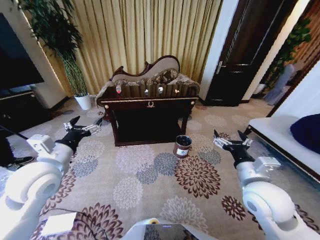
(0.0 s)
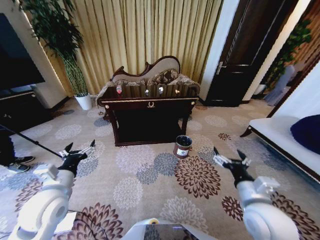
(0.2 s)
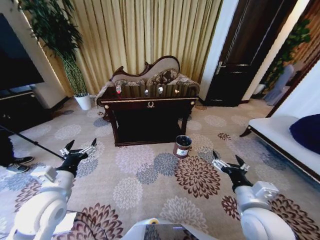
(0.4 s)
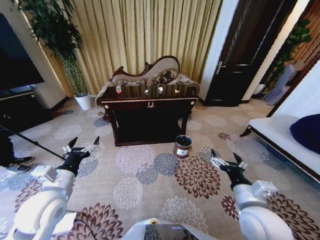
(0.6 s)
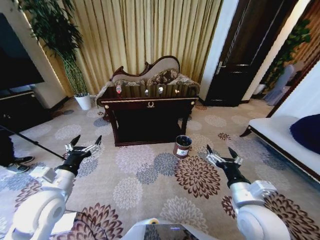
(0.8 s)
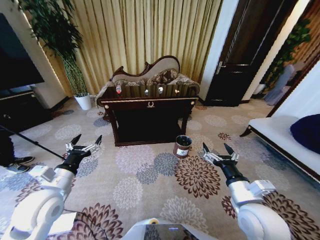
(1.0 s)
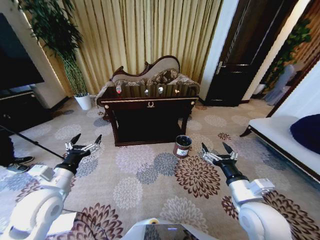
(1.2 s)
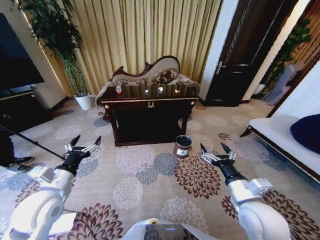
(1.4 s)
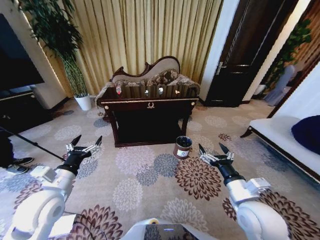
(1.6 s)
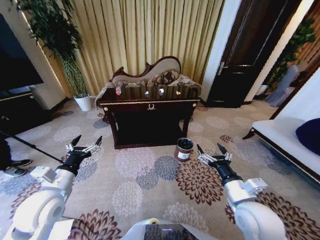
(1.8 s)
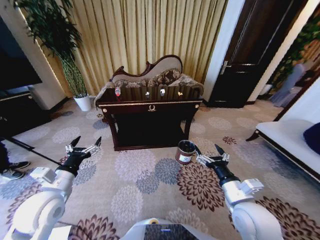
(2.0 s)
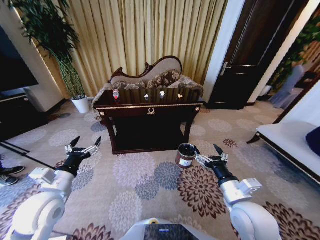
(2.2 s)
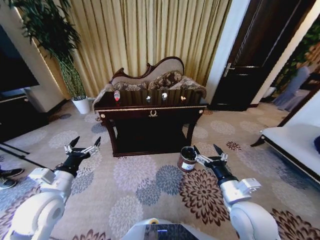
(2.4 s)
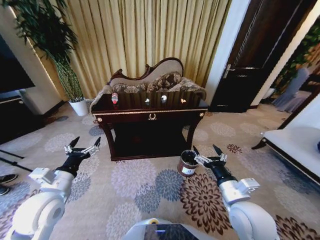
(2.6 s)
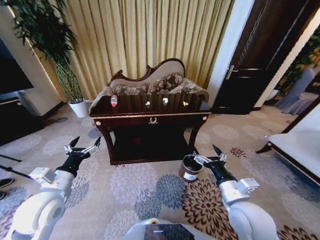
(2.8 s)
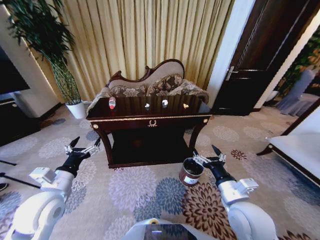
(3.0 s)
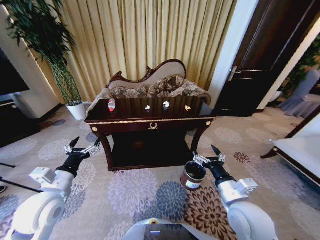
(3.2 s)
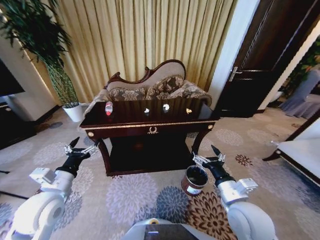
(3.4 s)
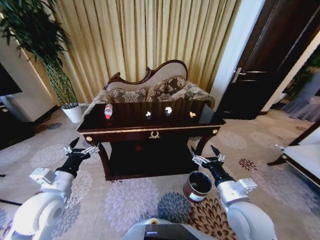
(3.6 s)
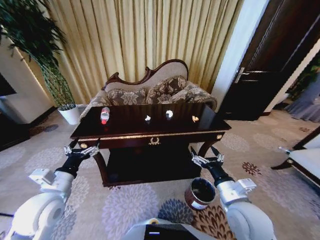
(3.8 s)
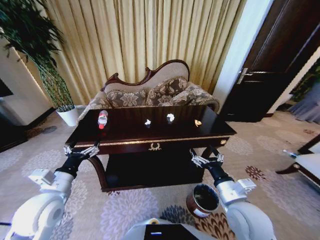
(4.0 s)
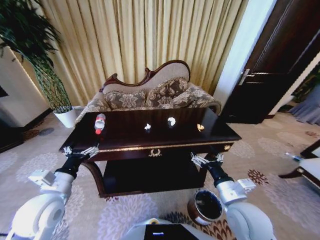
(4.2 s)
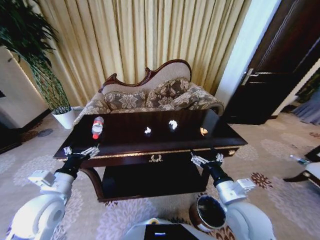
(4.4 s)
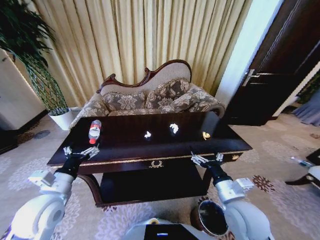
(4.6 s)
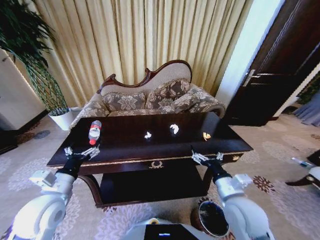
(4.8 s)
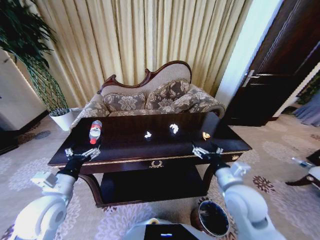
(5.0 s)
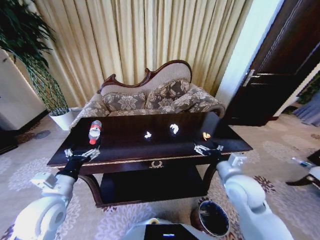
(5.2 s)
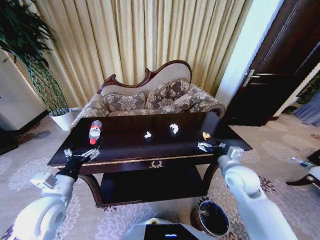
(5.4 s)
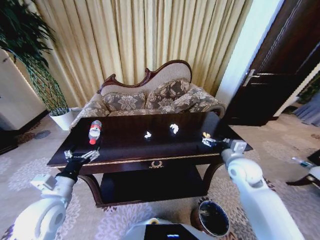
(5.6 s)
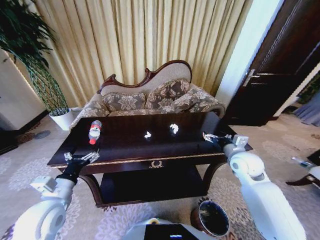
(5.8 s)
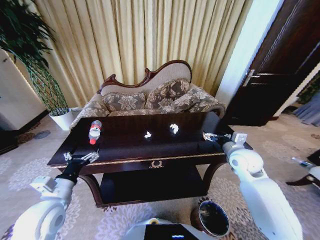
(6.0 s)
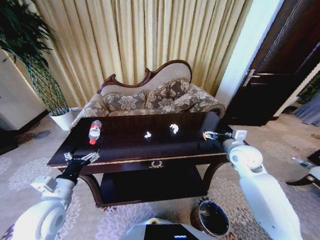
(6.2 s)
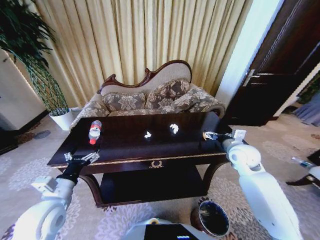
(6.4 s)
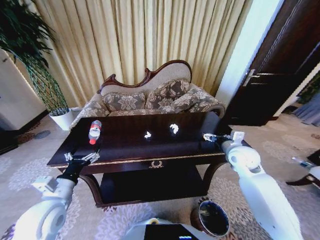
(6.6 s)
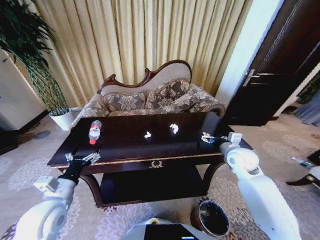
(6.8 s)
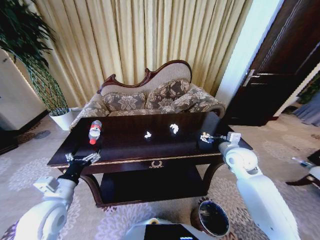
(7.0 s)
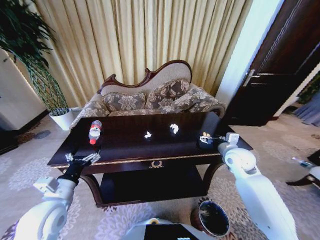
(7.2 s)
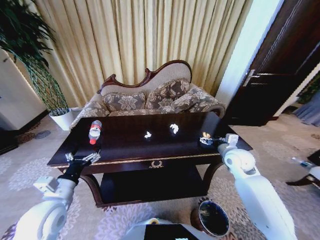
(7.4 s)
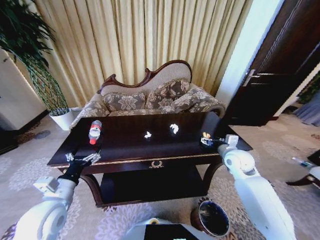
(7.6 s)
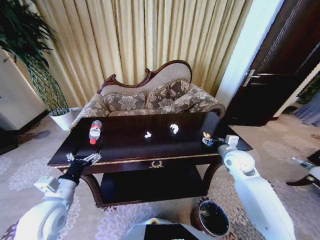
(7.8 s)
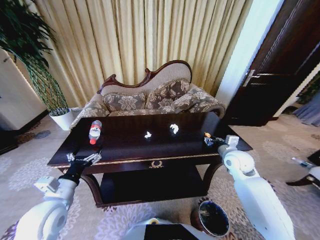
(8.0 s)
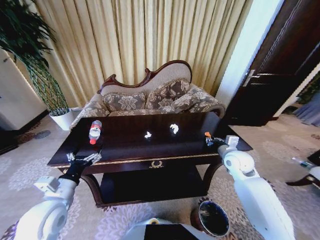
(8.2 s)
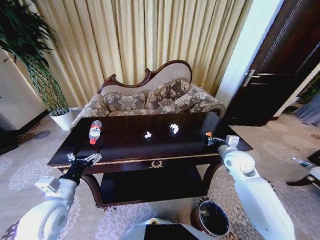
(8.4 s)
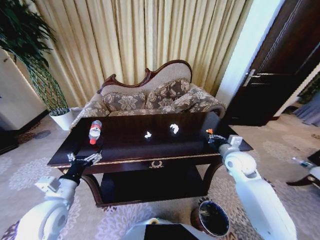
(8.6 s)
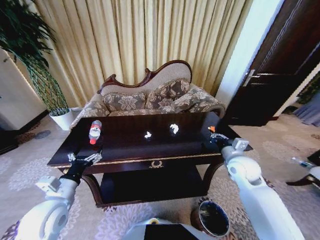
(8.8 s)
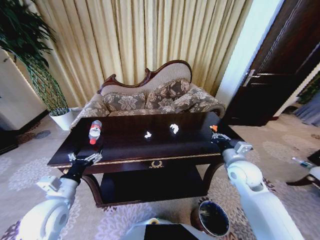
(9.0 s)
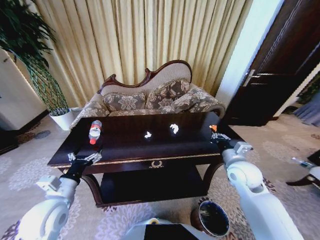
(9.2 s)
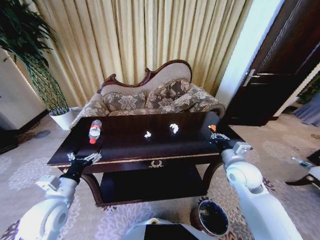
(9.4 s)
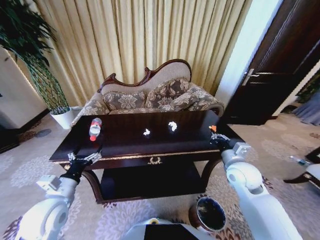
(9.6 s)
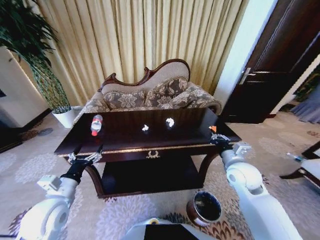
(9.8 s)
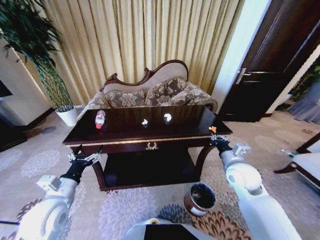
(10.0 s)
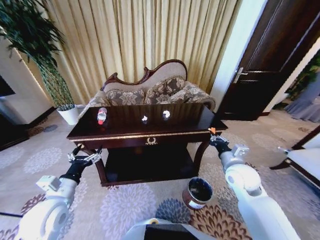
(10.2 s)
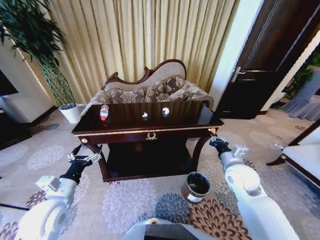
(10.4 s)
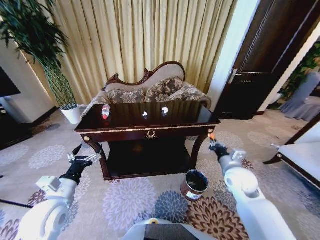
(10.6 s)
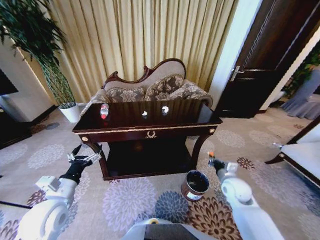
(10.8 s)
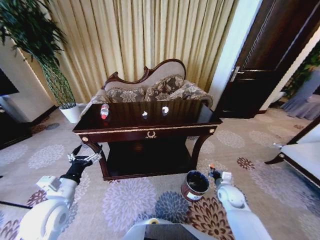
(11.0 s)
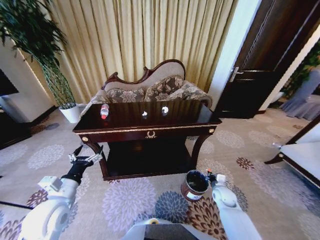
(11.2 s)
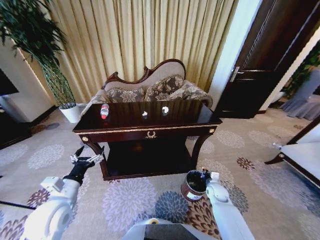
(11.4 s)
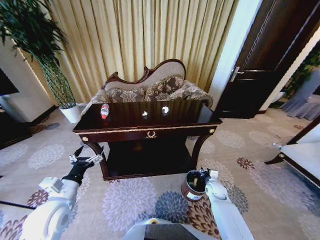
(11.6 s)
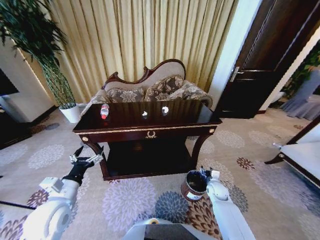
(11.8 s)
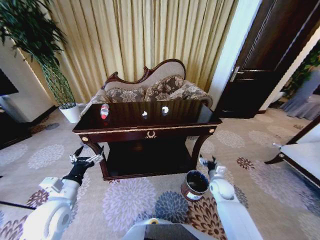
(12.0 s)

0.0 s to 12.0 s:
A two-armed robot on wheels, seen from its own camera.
Task of the whole recording: Move to the front of the table and place the trash on the table into the trash bin.
4.4 to 6.0 s: The right gripper heads forward and to the right, covering about 20 cm.
6.0 to 7.6 s: There are only small adjustments of the grippers.
7.6 to 9.0 s: The right gripper moves backward, about 5 cm, and closes its fingers.
10.4 to 12.0 s: The right gripper travels downward by approximately 20 cm, and opens its fingers.

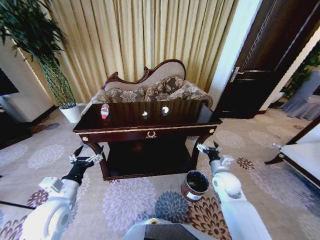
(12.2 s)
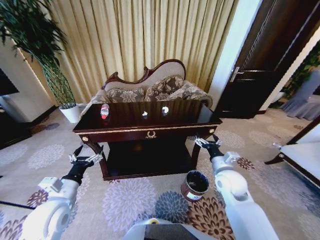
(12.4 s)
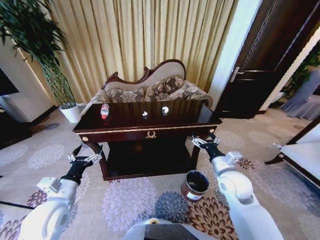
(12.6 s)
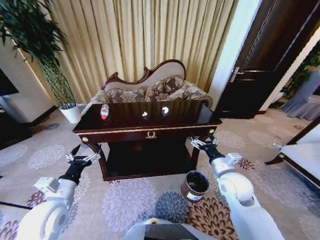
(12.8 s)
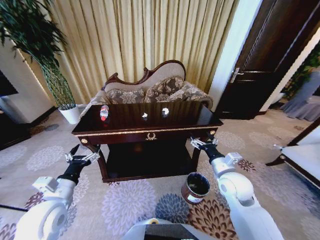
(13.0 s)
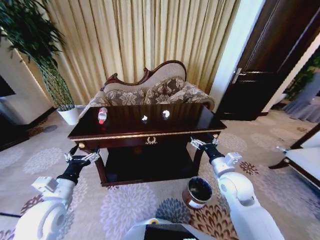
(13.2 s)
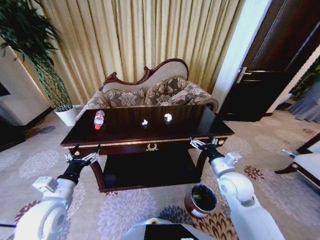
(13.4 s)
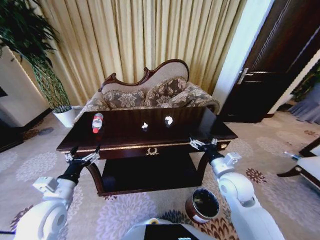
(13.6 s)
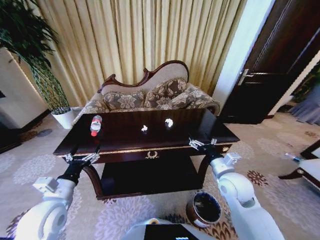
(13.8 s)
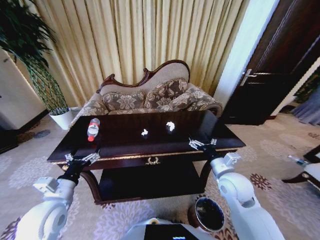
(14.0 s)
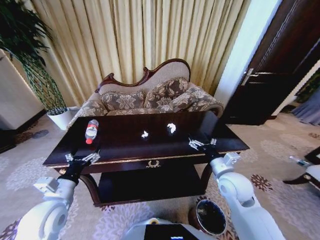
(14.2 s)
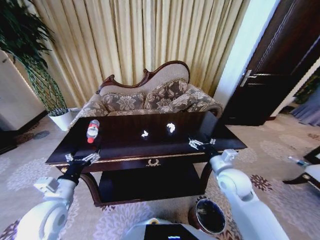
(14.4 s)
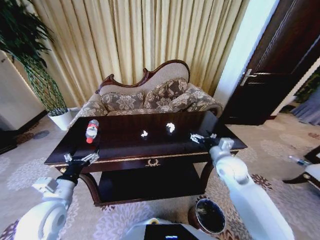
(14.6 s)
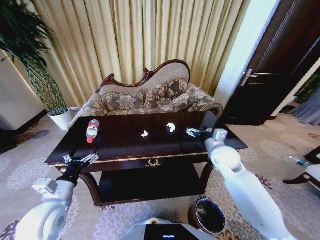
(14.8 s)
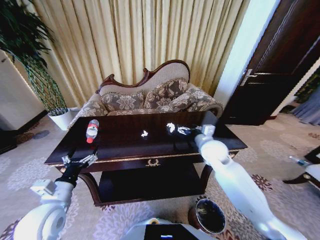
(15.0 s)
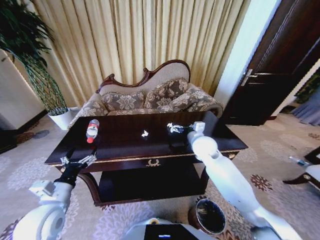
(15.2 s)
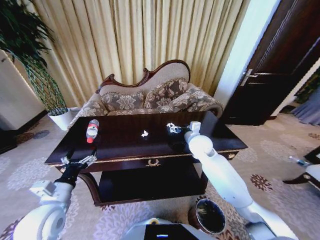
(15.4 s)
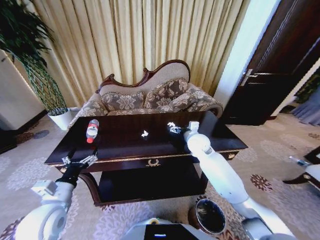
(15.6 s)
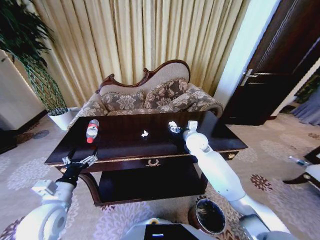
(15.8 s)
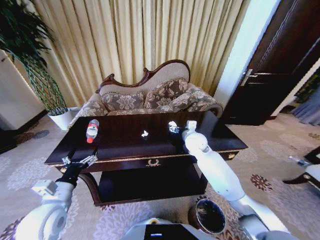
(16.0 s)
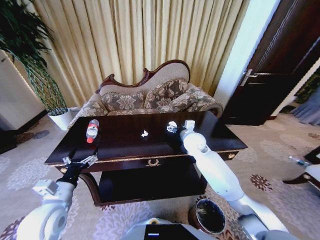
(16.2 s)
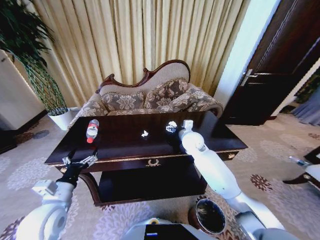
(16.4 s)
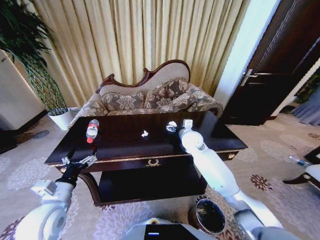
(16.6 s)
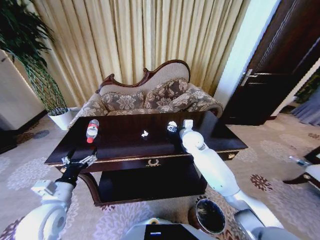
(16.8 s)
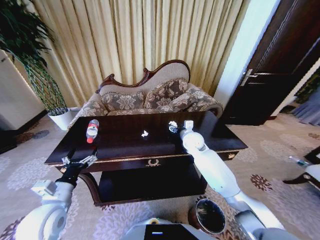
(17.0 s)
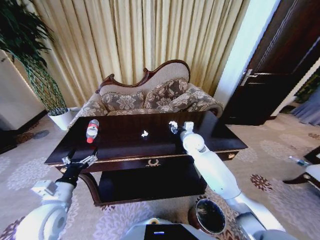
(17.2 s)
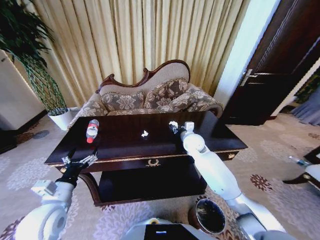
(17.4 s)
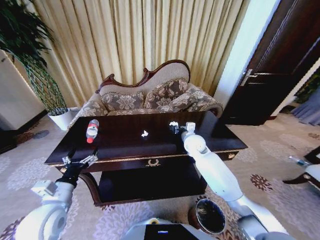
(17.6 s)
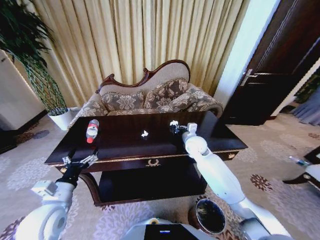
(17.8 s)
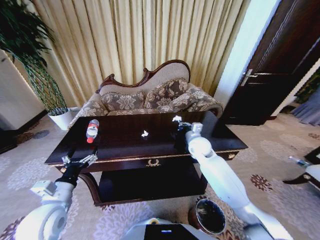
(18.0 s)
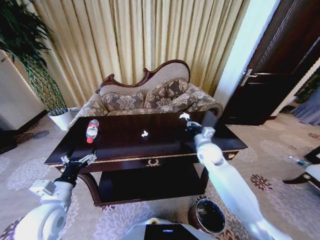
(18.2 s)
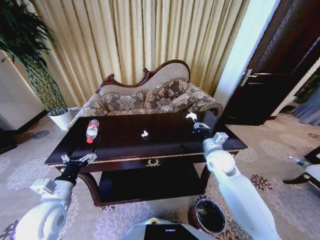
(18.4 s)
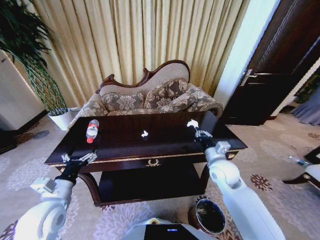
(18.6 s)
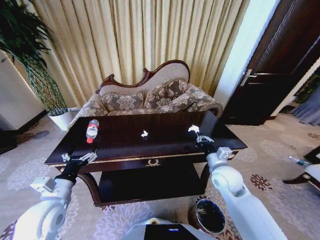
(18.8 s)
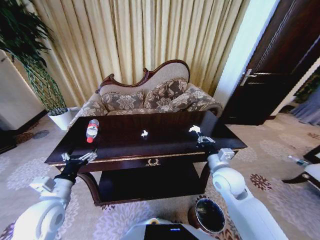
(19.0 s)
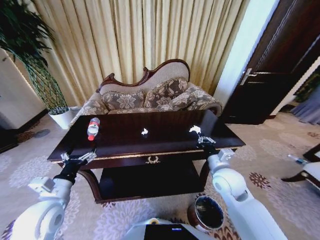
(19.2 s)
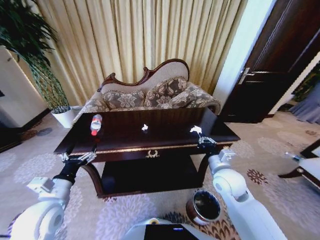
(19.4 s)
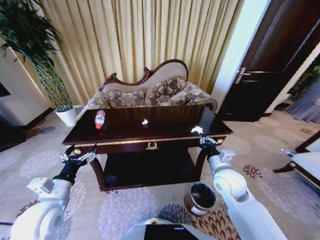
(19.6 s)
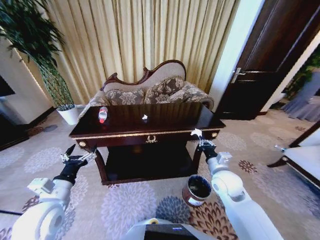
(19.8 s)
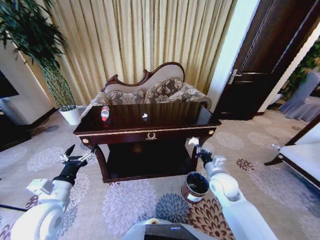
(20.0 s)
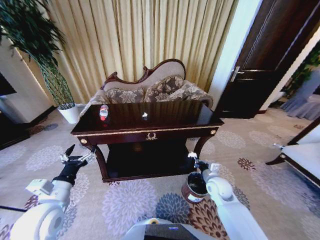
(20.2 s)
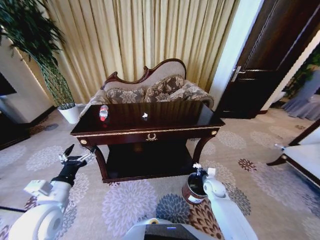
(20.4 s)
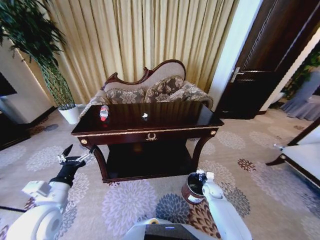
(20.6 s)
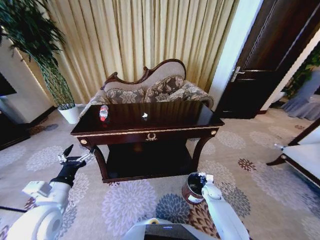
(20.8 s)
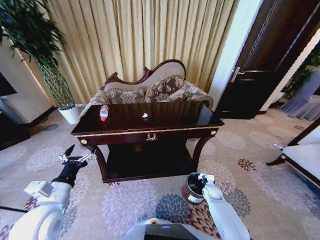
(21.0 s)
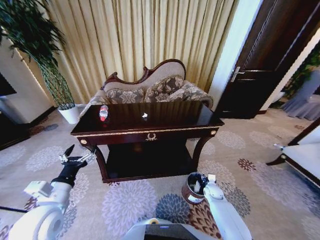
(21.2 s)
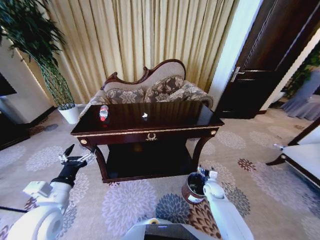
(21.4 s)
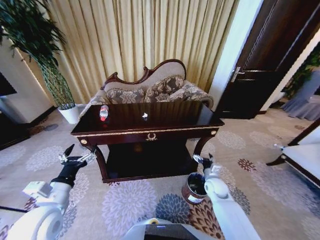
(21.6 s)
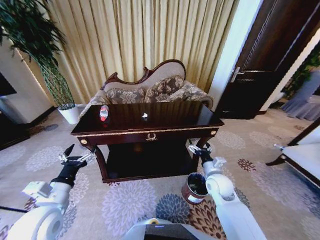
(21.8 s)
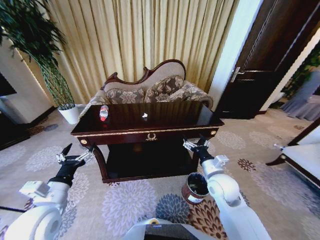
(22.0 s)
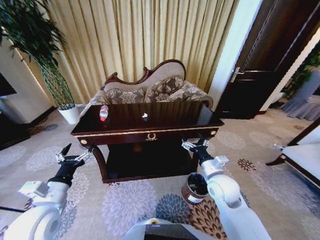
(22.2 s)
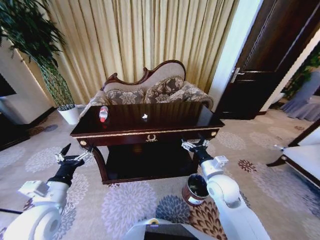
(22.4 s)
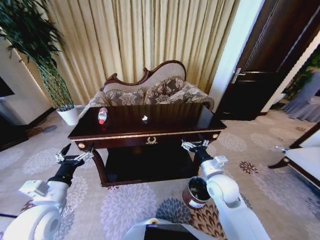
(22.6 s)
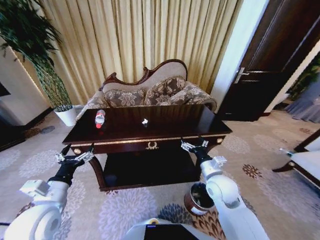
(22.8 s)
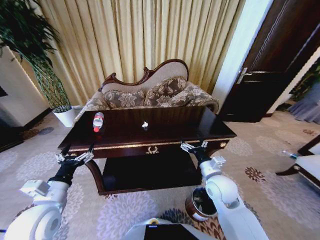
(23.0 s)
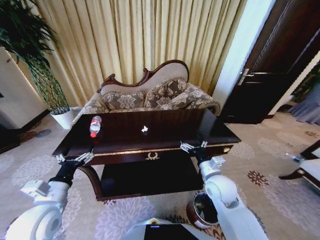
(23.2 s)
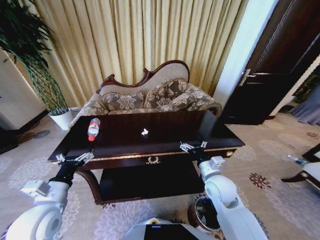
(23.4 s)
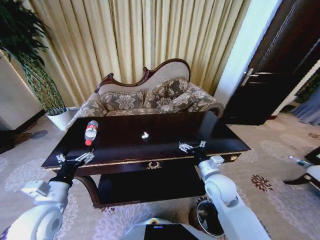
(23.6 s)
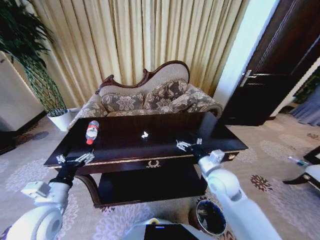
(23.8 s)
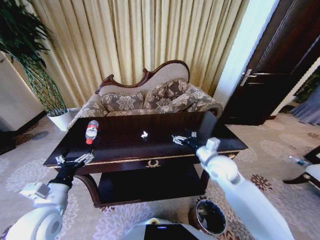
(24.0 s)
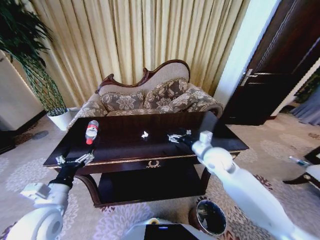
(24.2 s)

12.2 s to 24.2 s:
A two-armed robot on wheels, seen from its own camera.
Task of the whole recording: Move to the front of the table and place the trash on the table into the trash bin.
12.2 to 13.8 s: The right gripper goes some 5 cm upward.
13.8 to 15.2 s: The right gripper shifts roughly 15 cm forward.
15.2 to 16.6 s: The right gripper travels forward by roughly 5 cm.
16.6 to 18.2 s: The right gripper travels to the right and backward by approximately 10 cm, and closes.
18.2 to 19.8 s: The right gripper goes some 10 cm backward.
19.8 to 21.2 s: The right gripper heads downward, covering about 25 cm, and opens its fingers.
21.2 to 22.6 s: The right gripper is displaced upward by roughly 25 cm, and opens its fingers.
22.6 to 24.2 s: The right gripper travels forward and upward by some 10 cm.
